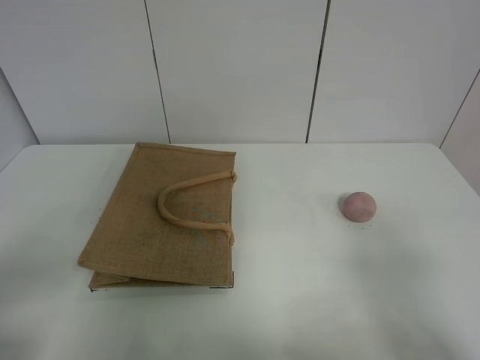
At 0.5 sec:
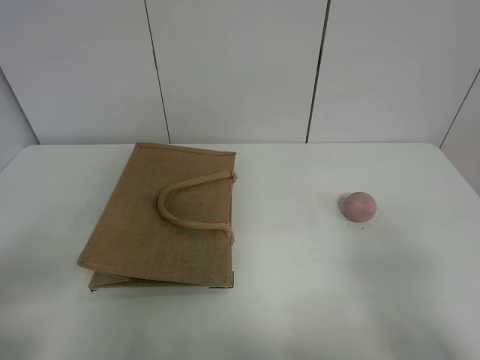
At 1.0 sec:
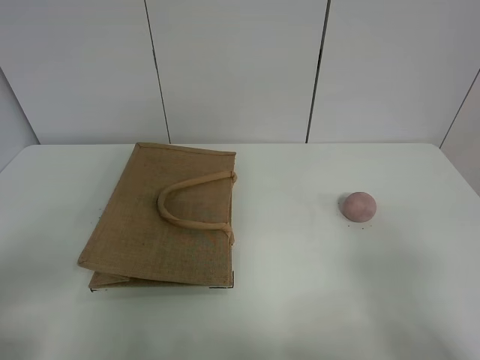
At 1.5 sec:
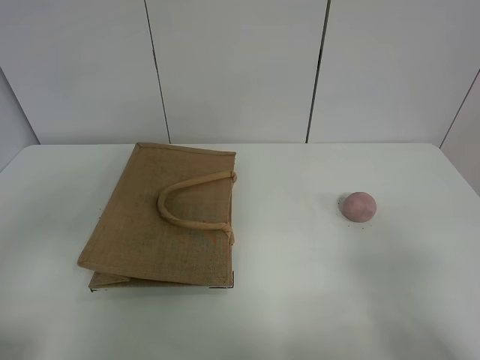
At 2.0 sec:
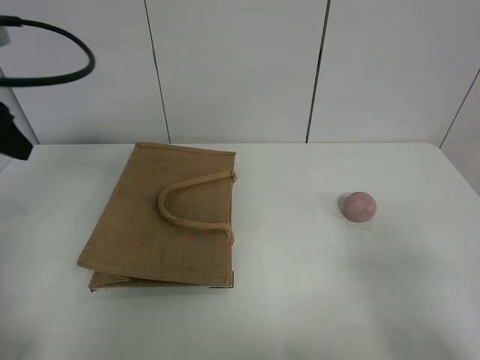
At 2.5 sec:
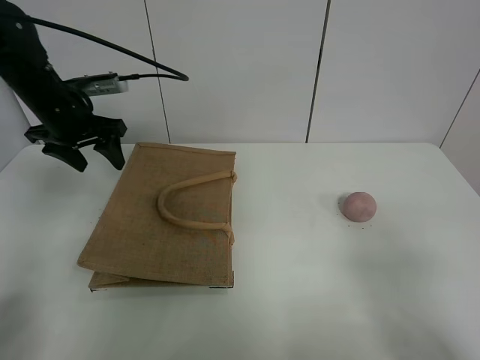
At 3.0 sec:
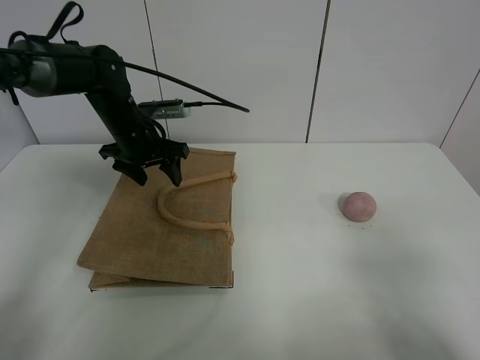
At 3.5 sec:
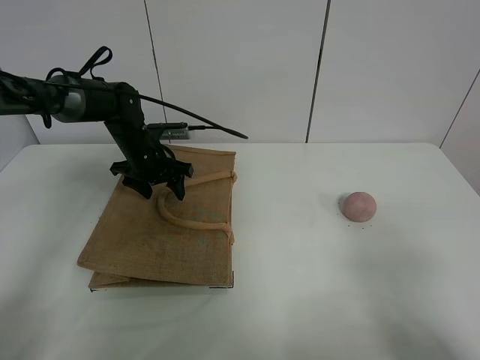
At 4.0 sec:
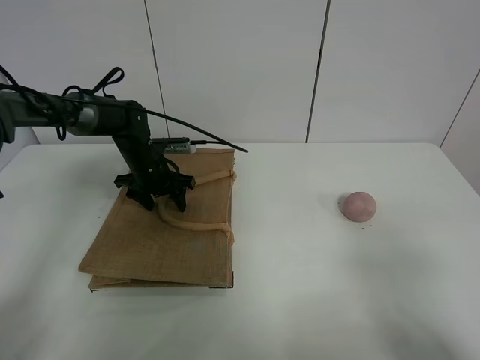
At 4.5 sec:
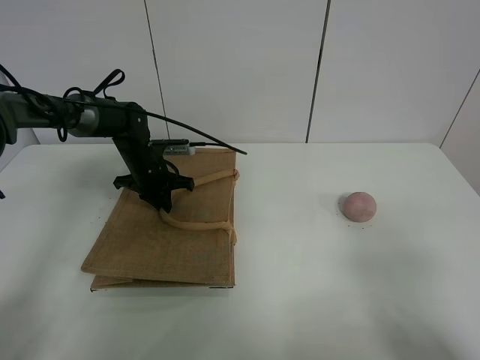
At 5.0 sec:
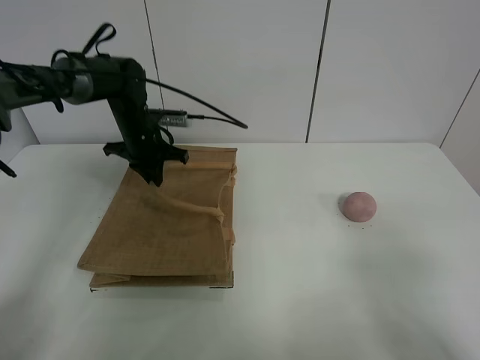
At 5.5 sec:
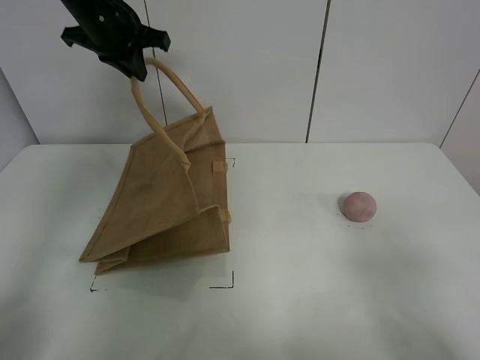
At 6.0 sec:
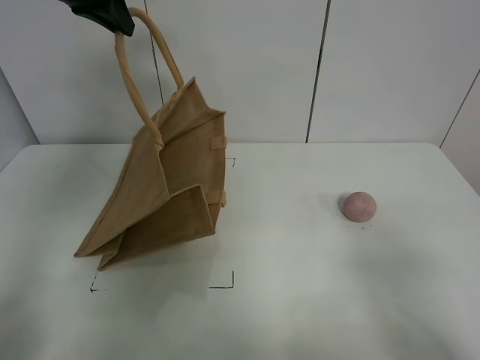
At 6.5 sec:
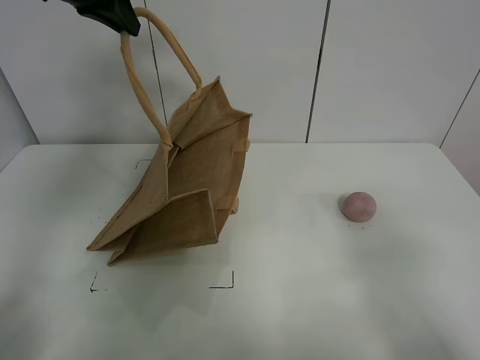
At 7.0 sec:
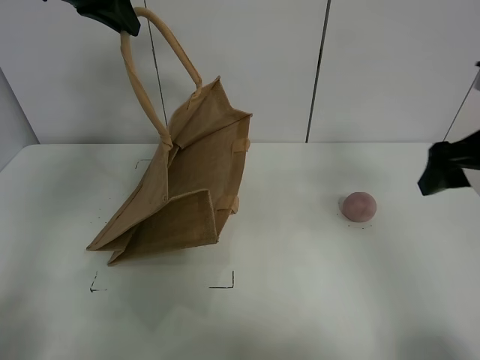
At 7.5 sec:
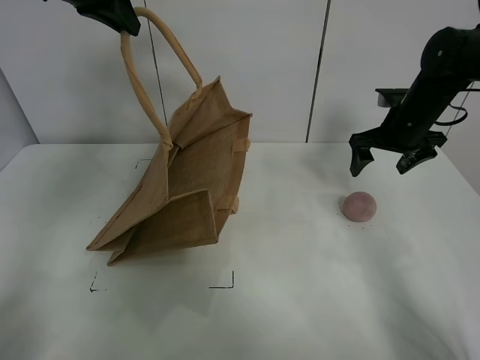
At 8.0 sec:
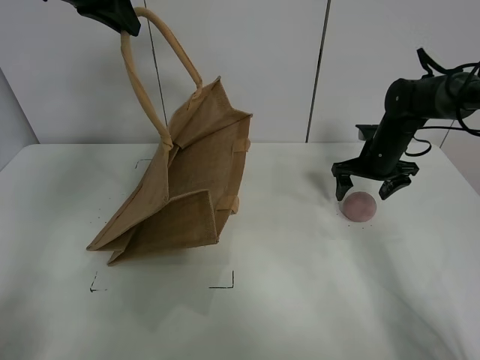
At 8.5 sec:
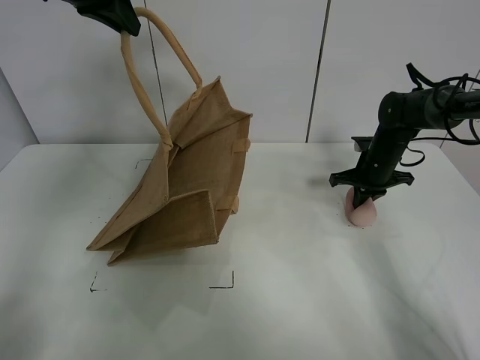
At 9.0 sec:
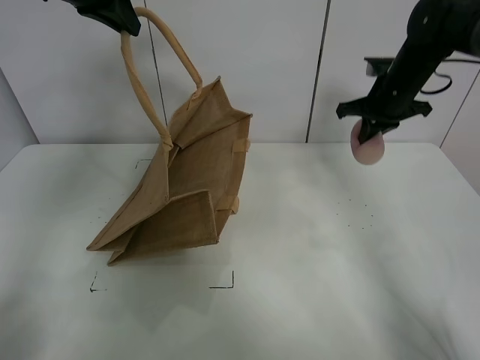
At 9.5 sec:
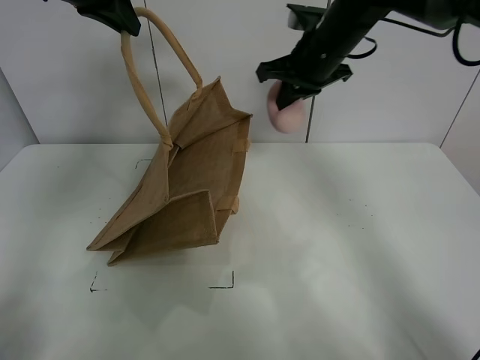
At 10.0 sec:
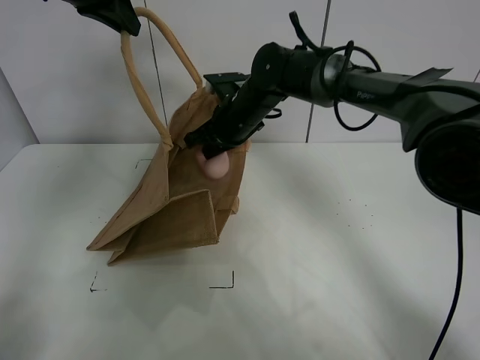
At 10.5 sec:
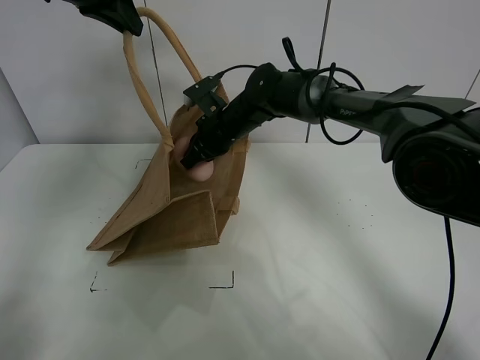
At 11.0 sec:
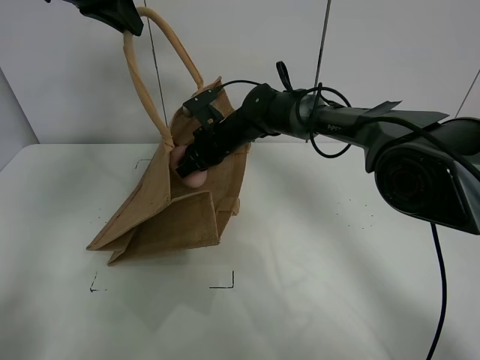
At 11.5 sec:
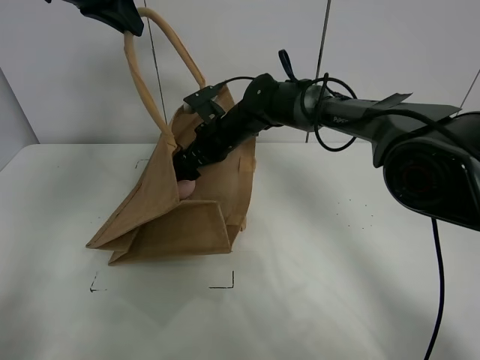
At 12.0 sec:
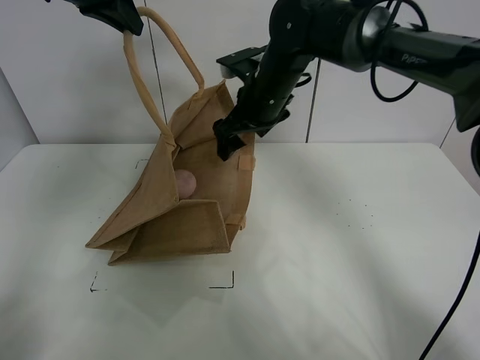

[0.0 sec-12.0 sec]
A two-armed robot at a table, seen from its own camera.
Task of the whole recording: open the brown linen bag and put the peach in the bag.
Step, 0.0 sec to 5.5 sec: Lift the handbag with left gripper.
Step, 6.0 sec to 8.5 sec: Grasp the peach with right gripper.
Step, 9.0 sec to 12.0 sec: Place the peach in the handbag with right gripper.
0.0 sec to 2.0 sec: The left gripper moves forward, about 25 cm.
2.0 sec to 4.0 sec: The left gripper moves downward, forward and to the right, some 35 cm.
4.0 sec to 6.0 sec: The left gripper goes about 35 cm upward, and closes.
6.0 sec to 8.0 sec: The right gripper goes roughly 40 cm forward.
8.0 sec to 10.0 sec: The right gripper moves to the left, about 25 cm, and closes its fingers.
10.0 sec to 12.0 sec: The right gripper shifts roughly 5 cm upward, and opens its fingers.

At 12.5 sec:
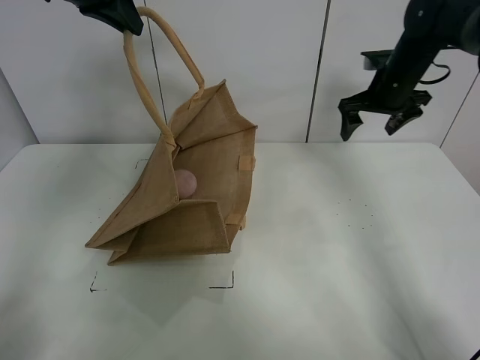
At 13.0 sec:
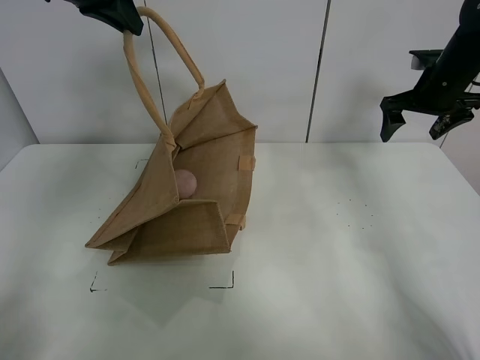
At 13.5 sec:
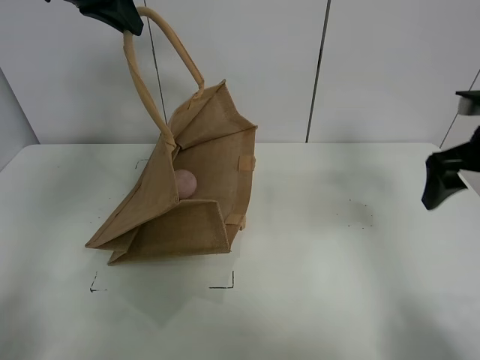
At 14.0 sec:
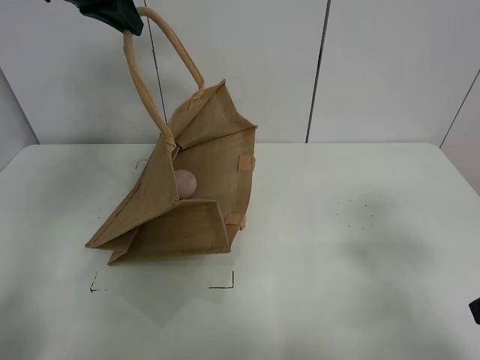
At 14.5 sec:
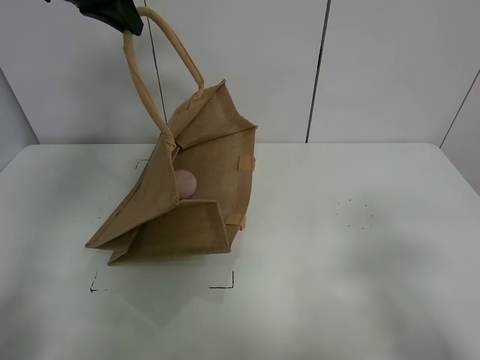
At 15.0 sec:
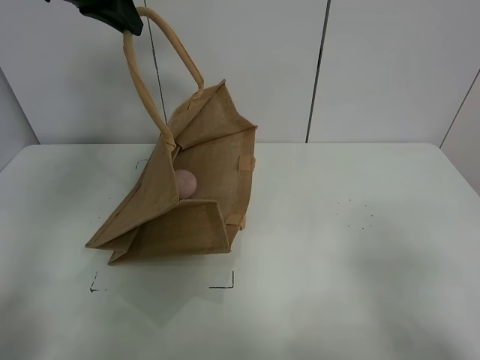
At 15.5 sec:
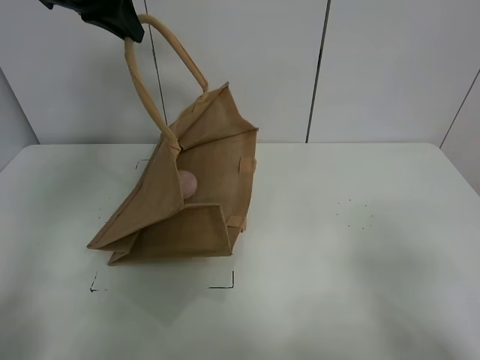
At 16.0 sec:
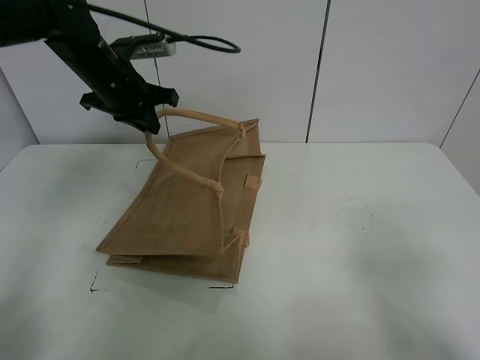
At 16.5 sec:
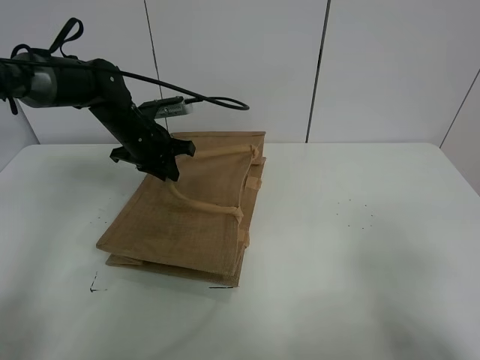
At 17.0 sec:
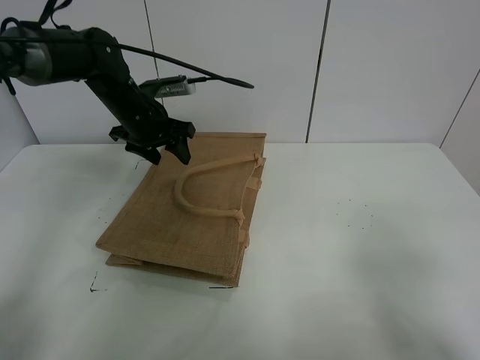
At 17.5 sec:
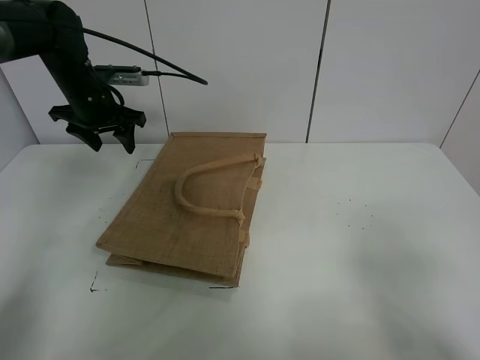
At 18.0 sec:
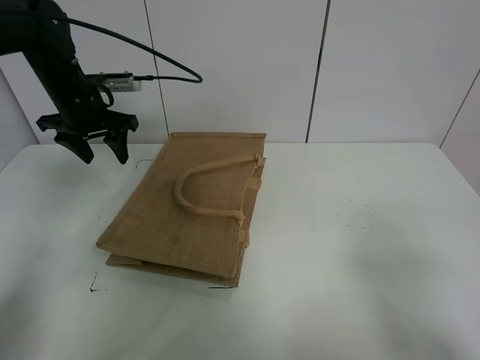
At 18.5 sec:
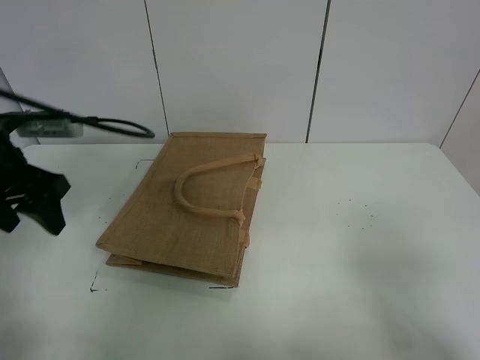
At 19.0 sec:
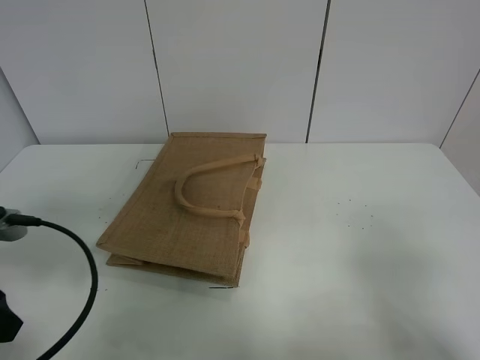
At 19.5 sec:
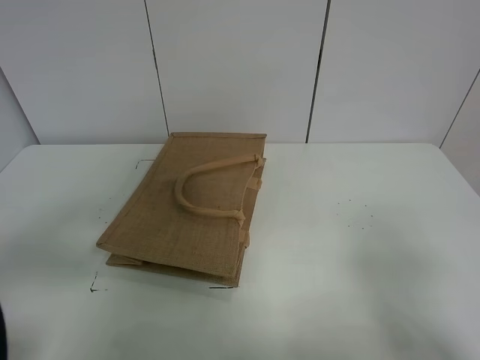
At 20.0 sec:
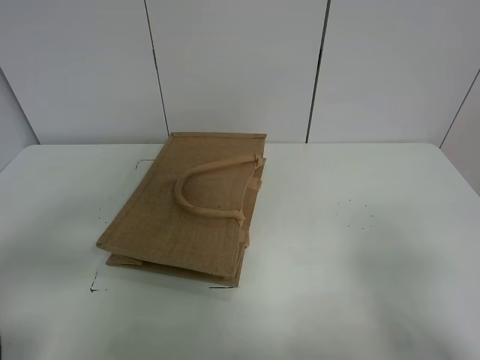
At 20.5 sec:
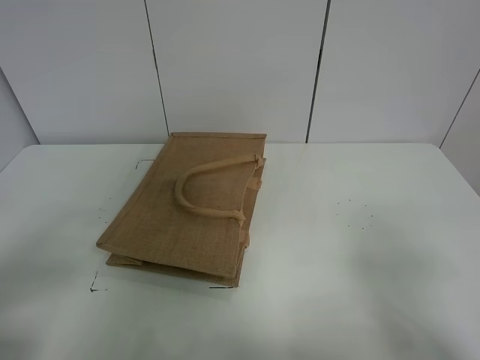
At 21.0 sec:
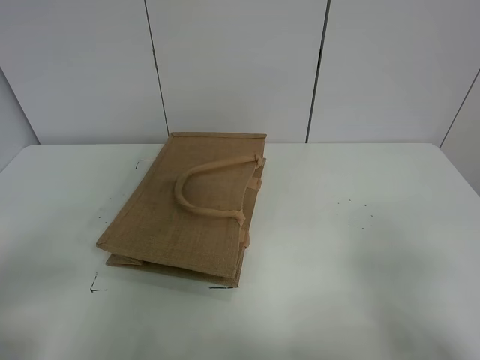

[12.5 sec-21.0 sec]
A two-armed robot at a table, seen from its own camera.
Task of the whole recording: open the brown linen bag and put the peach in the bag.
Step, 12.5 sec to 17.0 sec: Put down the handbag with left grippe.
12.5 sec to 14.5 sec: The right gripper heads backward, covering roughly 40 cm.
14.5 sec to 16.5 sec: The left gripper moves downward, about 25 cm.
16.5 sec to 19.0 sec: The left gripper shifts about 30 cm backward, and opens.
19.0 sec to 21.0 sec: The left gripper goes some 10 cm backward.
